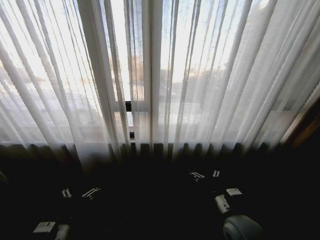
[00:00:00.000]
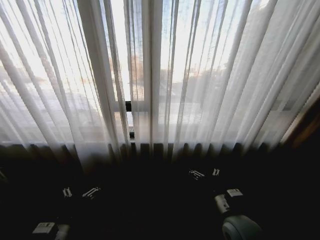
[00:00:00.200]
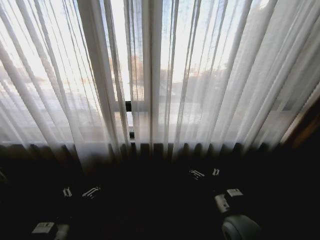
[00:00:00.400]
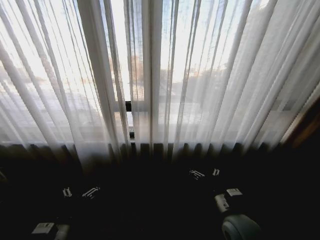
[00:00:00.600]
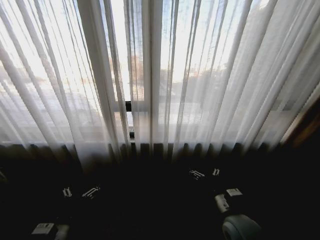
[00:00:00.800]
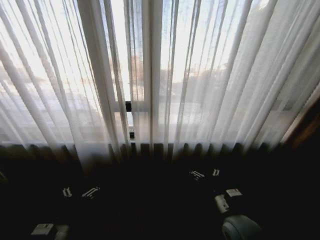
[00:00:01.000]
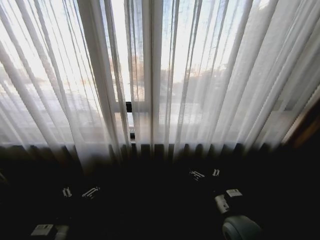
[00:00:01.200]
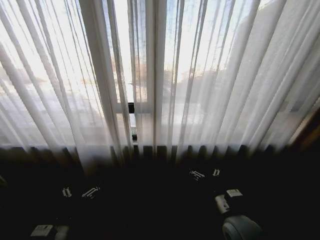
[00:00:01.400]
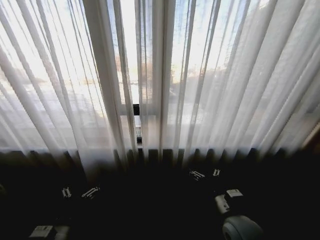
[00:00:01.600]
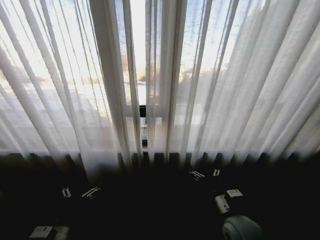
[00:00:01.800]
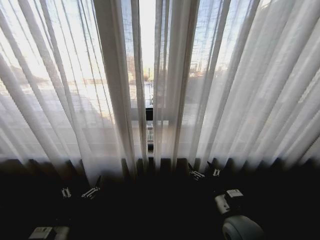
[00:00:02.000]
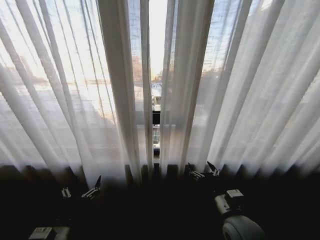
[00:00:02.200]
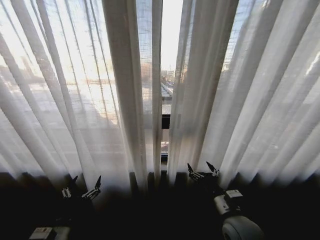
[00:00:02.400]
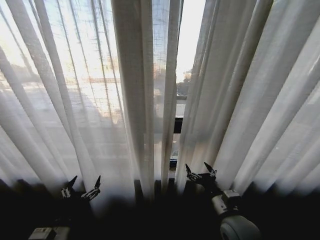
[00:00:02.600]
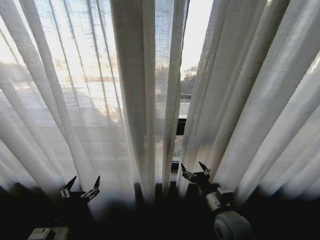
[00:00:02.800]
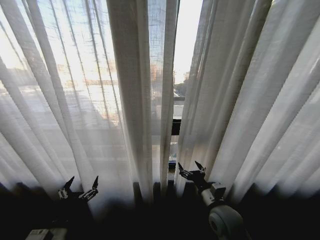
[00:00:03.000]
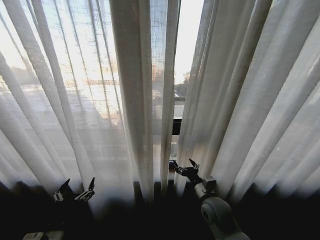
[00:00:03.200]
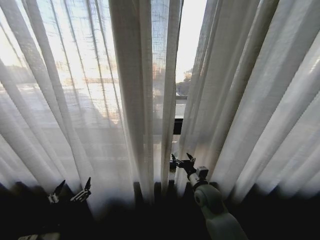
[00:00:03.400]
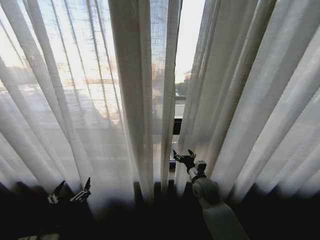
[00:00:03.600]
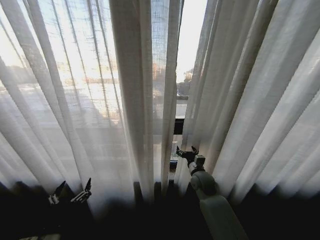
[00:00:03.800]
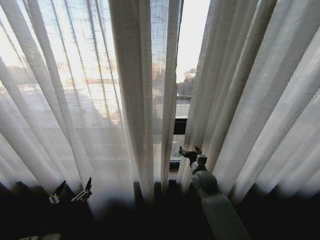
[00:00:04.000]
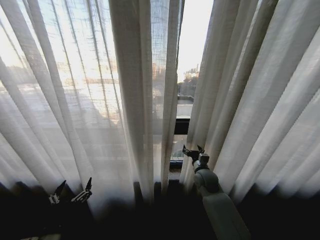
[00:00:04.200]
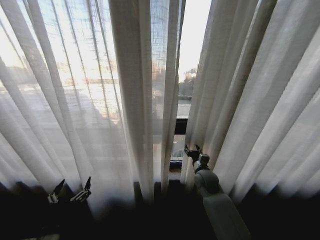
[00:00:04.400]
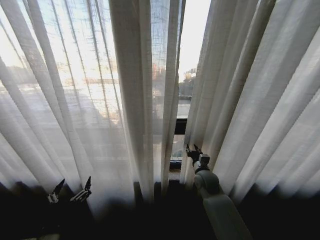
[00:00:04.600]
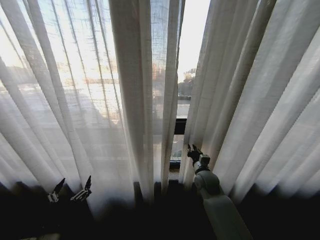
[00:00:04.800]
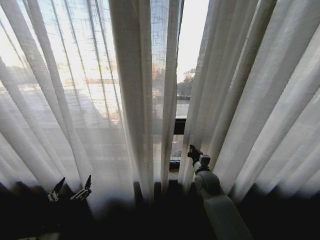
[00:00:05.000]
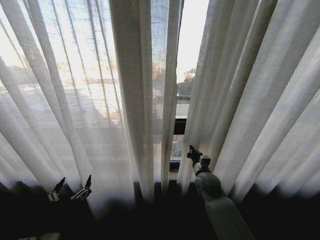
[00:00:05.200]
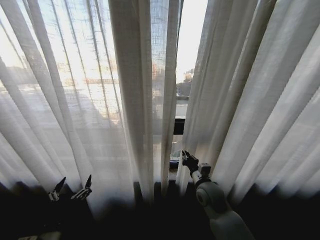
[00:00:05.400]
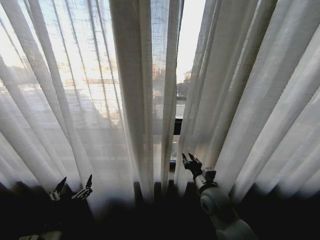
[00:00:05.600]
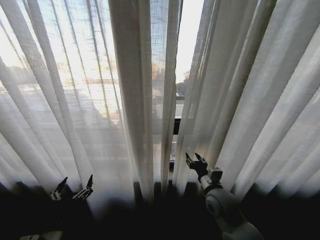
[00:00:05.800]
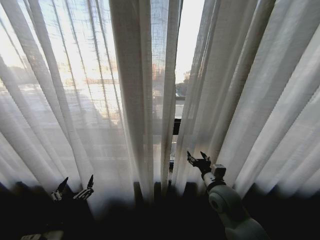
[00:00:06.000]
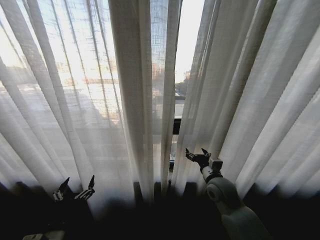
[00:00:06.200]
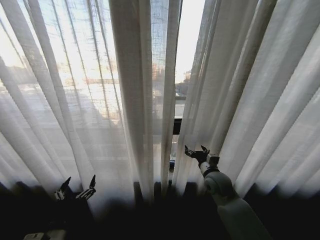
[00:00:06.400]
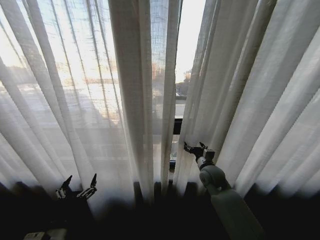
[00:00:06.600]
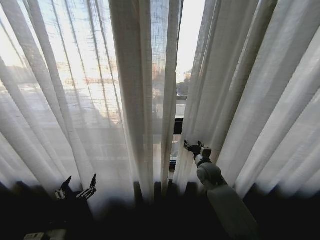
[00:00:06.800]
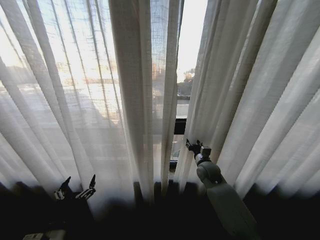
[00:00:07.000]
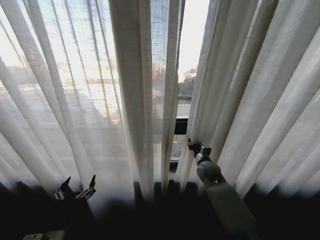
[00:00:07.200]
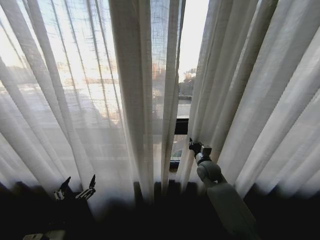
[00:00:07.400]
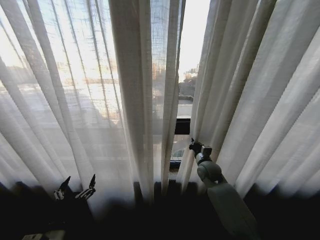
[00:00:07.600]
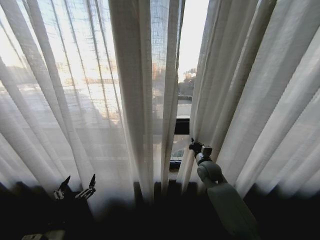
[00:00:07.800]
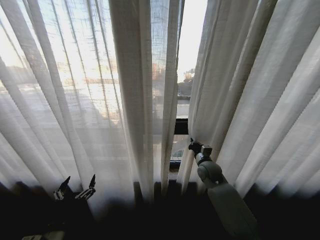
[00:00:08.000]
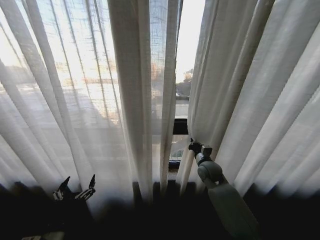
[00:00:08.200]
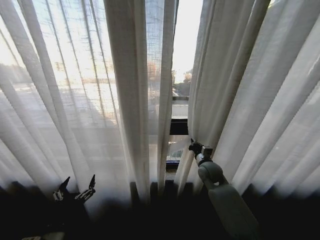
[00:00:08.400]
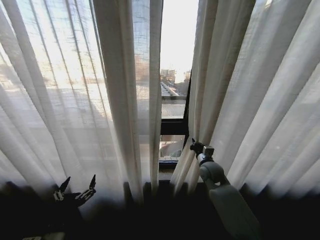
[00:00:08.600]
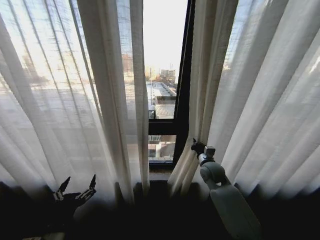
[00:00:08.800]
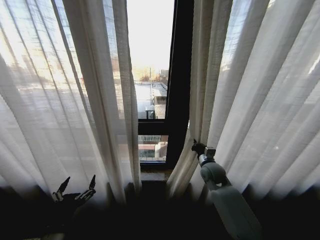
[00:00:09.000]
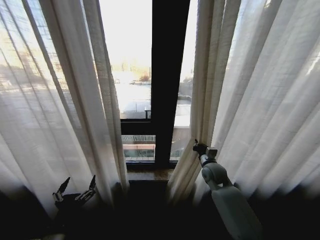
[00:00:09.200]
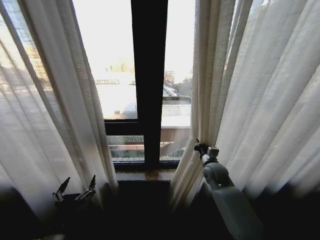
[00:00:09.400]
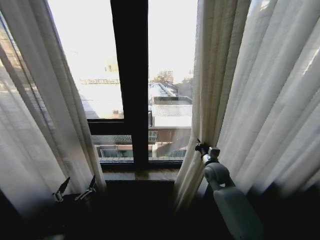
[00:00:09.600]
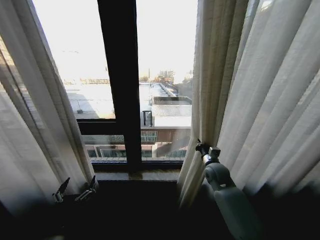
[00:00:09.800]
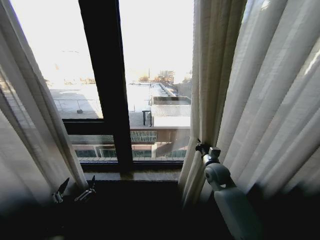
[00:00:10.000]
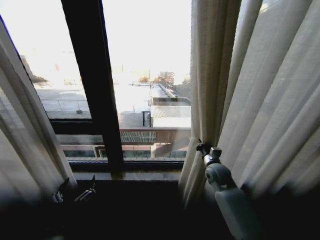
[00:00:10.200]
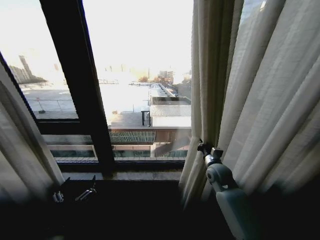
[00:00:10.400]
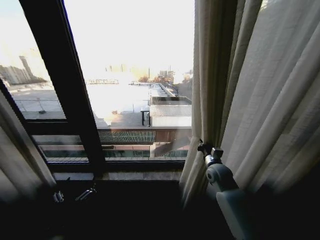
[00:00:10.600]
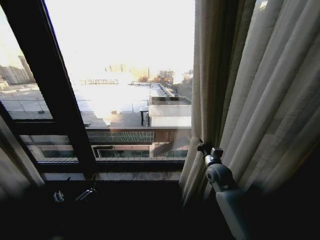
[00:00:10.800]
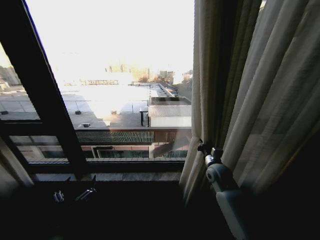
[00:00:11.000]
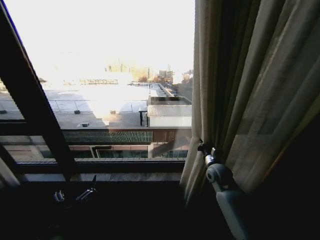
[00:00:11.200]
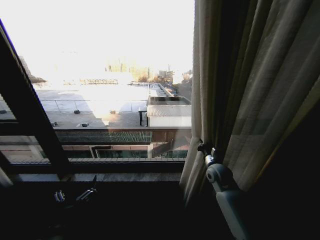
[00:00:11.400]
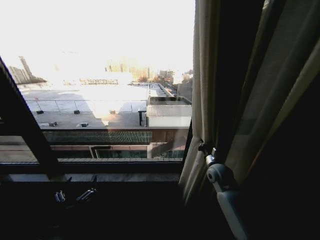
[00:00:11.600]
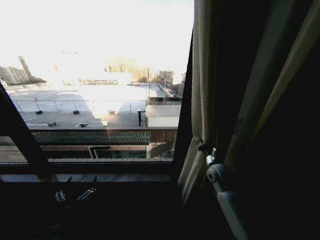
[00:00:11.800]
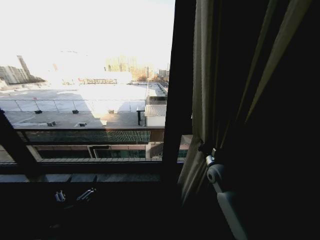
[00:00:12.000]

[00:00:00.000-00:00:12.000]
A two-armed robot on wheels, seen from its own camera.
Task of the whole recording: Open the curtains by pulling them apart, changing their state from closed to fully open.
00:00:03.000 to 00:00:04.400: The right gripper heads forward, covering some 15 cm.
00:00:04.400 to 00:00:06.000: The right gripper moves backward and upward, about 10 cm, and closes, then opens again.
00:00:06.000 to 00:00:07.600: The right gripper moves forward, some 15 cm, and closes up.

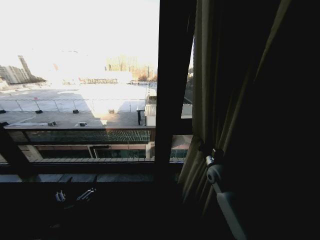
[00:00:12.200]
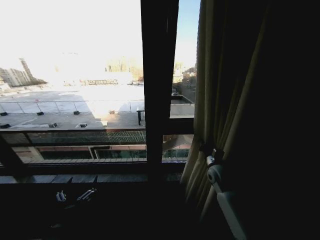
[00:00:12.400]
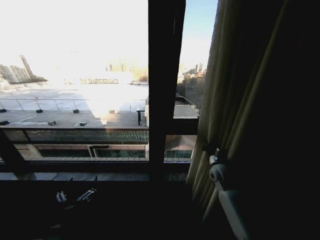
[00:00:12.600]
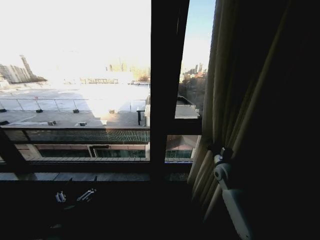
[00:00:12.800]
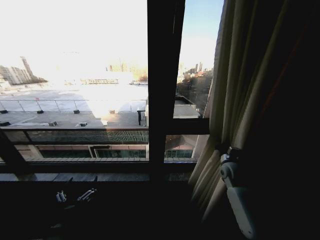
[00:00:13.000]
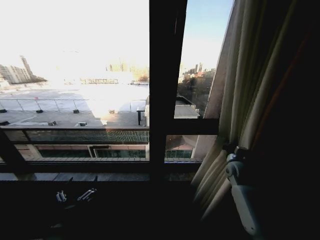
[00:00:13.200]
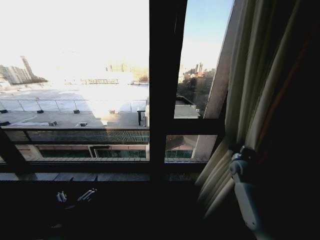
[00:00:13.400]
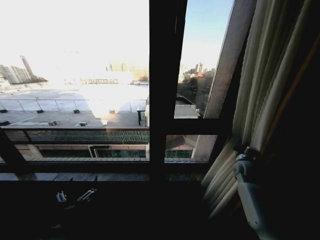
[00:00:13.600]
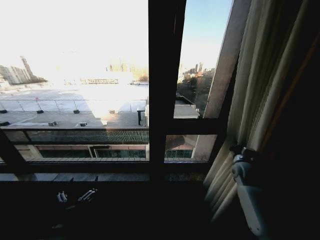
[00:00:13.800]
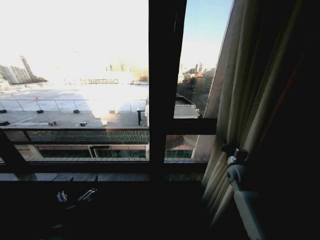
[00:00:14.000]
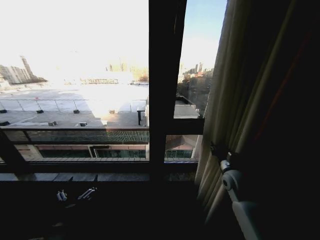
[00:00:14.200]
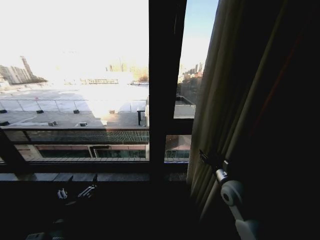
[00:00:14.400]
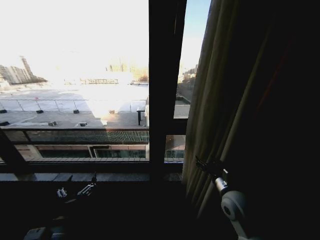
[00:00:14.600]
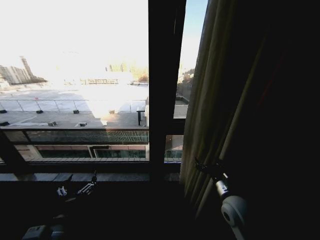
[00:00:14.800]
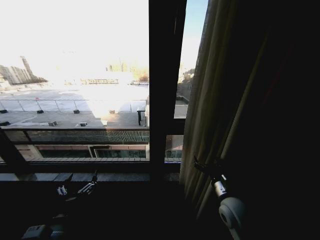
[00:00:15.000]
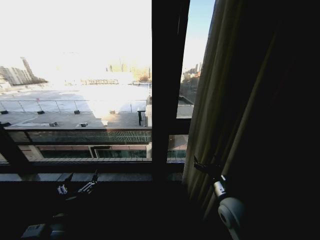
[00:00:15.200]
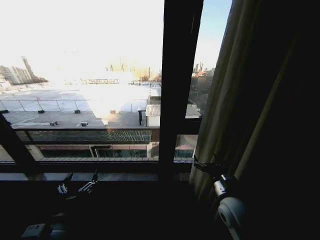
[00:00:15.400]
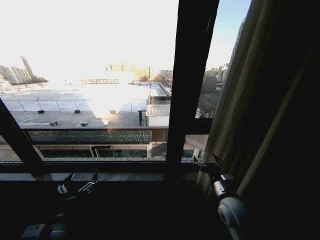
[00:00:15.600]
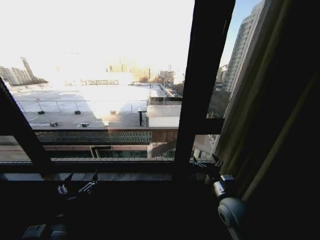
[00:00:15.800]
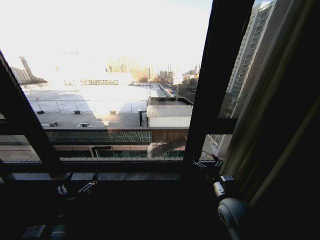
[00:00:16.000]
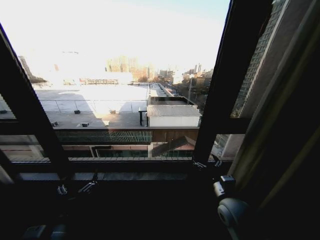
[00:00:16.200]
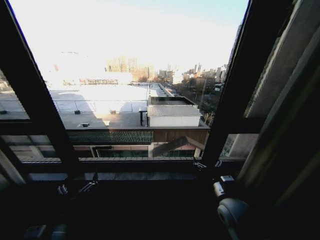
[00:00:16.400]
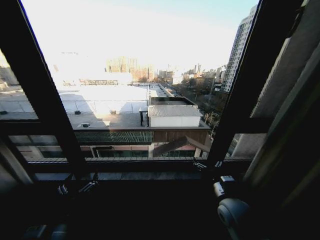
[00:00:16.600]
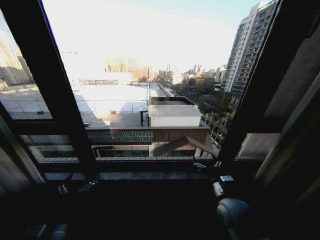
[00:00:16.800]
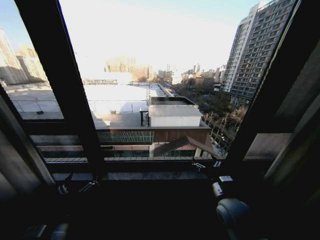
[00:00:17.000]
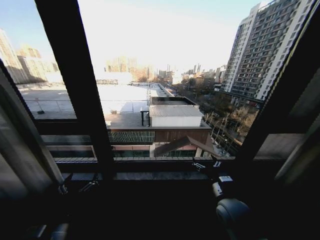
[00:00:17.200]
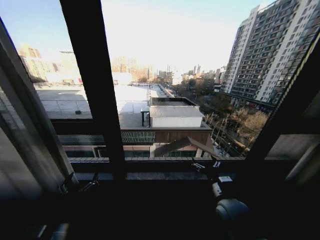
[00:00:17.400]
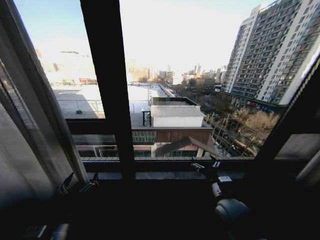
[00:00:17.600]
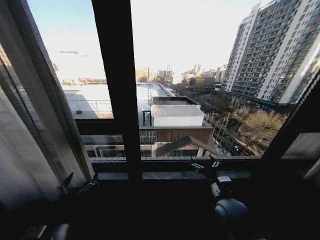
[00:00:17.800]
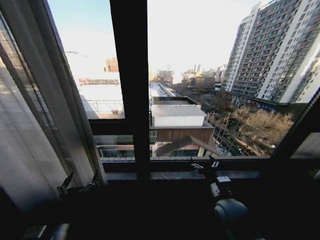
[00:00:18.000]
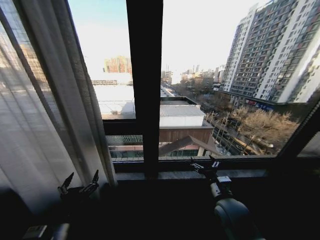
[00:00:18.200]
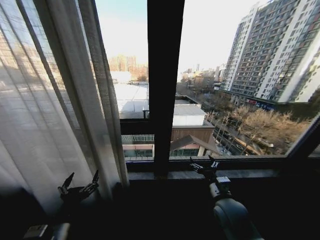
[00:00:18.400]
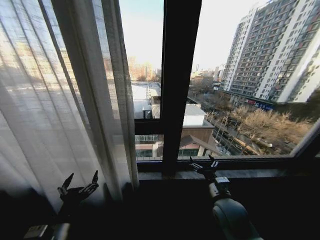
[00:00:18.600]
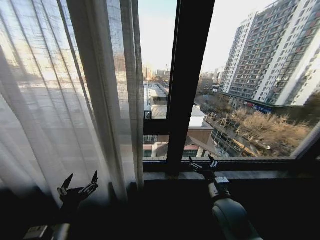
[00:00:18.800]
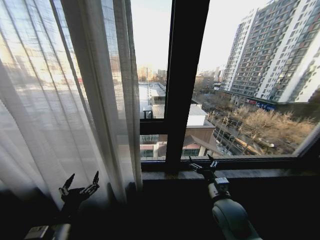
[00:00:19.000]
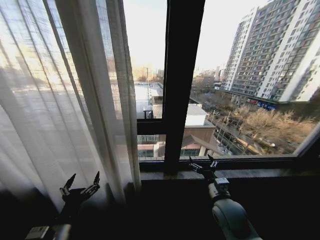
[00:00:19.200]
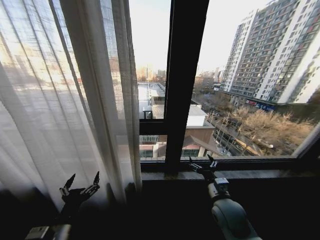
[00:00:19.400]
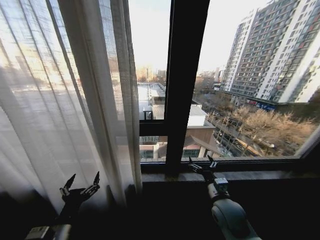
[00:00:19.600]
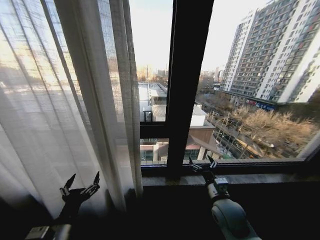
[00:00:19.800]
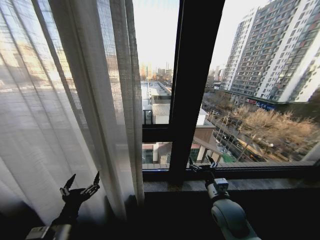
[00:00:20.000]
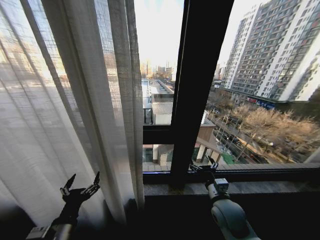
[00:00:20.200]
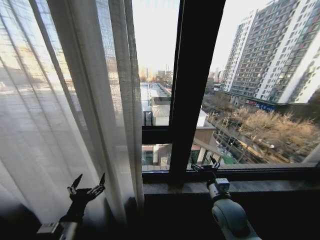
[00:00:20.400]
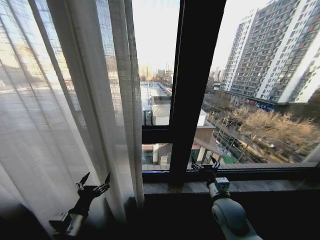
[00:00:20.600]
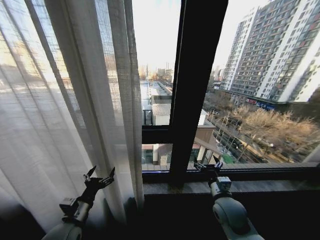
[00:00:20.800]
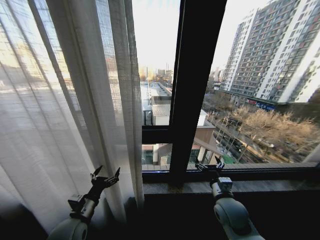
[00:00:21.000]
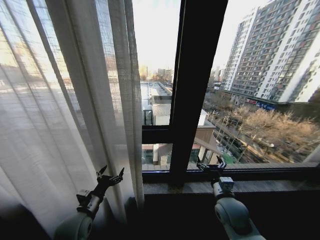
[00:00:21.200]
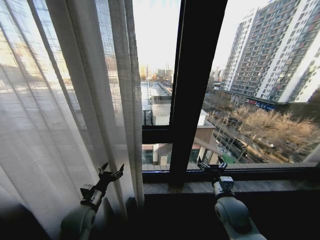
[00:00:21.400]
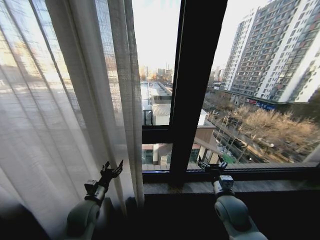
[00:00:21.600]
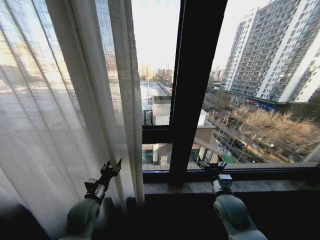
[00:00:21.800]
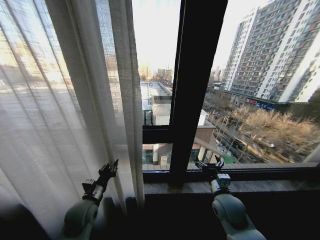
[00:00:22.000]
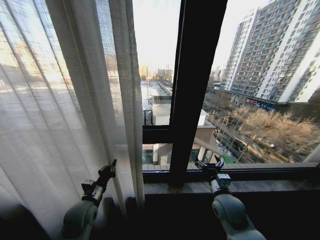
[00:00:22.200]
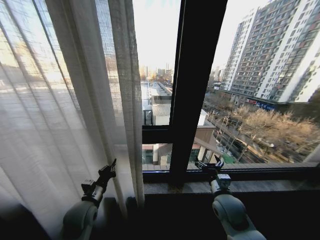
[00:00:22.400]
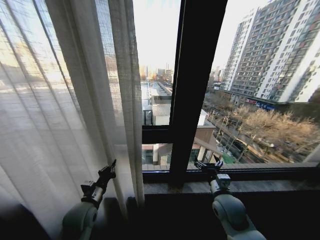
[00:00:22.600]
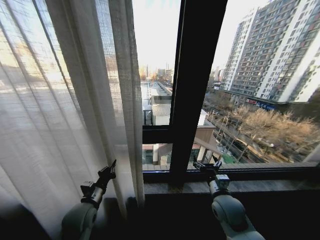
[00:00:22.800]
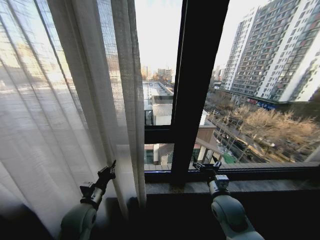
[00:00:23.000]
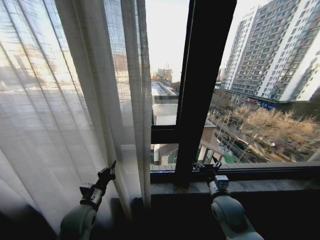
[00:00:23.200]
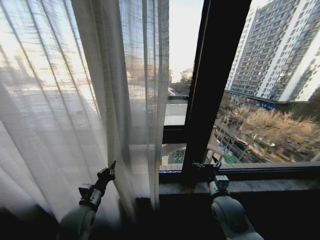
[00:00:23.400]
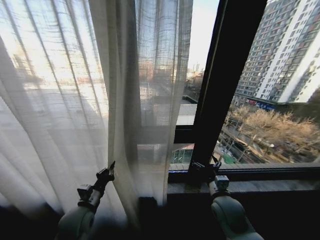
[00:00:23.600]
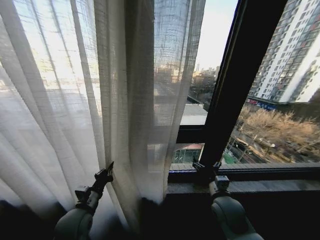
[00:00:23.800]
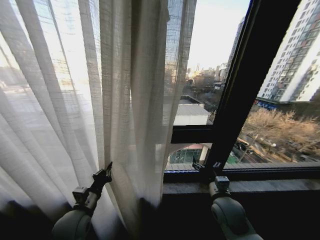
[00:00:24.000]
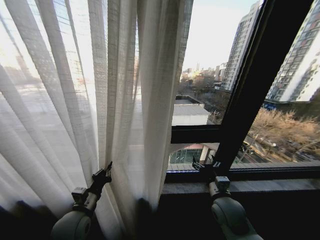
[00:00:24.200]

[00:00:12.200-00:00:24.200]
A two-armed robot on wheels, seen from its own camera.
Task of the whole recording: Open the curtains by pulling them apart, changing their state from closed to fully open.
00:00:12.200 to 00:00:13.800: The right gripper goes approximately 15 cm to the right.
00:00:13.800 to 00:00:15.200: The right gripper shifts approximately 25 cm backward and to the left, and opens.
00:00:19.800 to 00:00:21.200: The left gripper shifts approximately 10 cm forward.
00:00:21.200 to 00:00:22.600: The left gripper closes its fingers.
